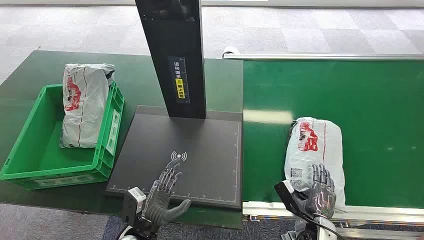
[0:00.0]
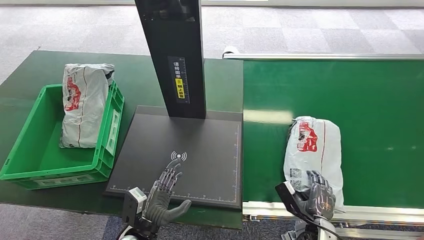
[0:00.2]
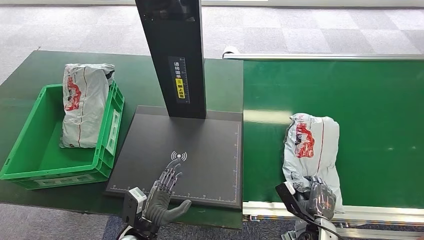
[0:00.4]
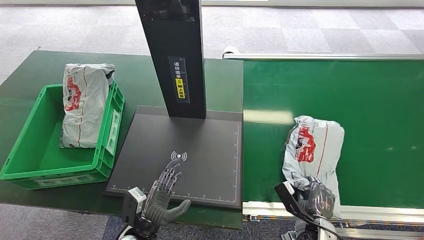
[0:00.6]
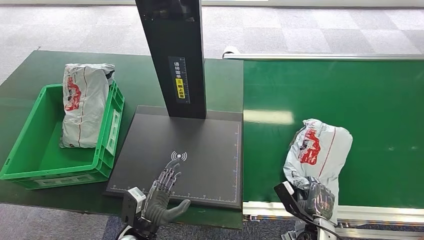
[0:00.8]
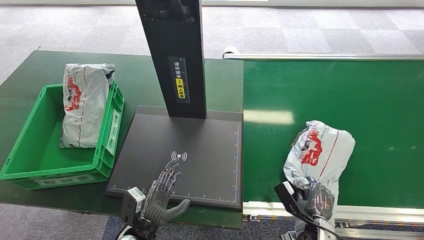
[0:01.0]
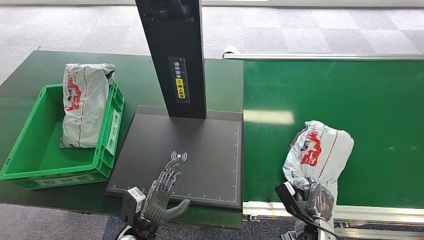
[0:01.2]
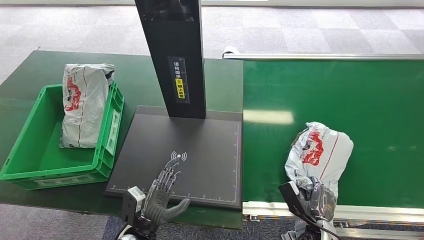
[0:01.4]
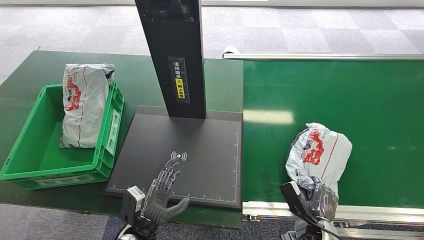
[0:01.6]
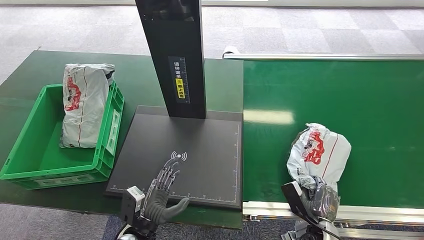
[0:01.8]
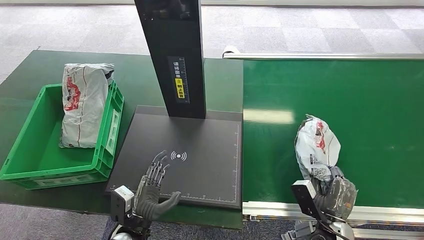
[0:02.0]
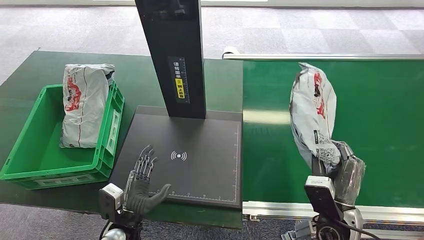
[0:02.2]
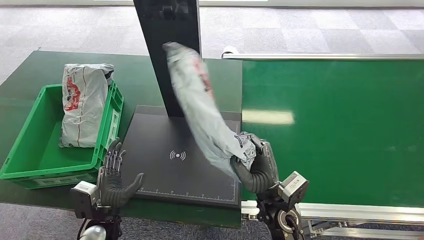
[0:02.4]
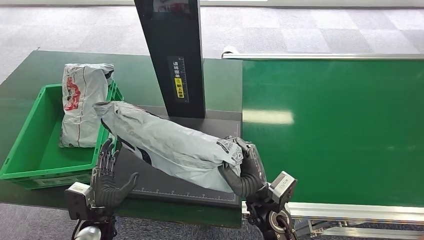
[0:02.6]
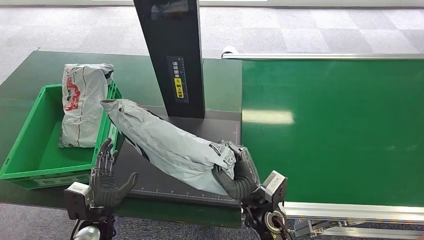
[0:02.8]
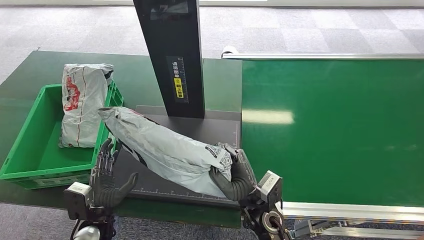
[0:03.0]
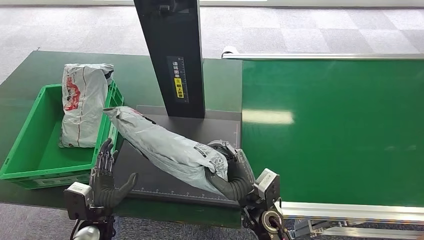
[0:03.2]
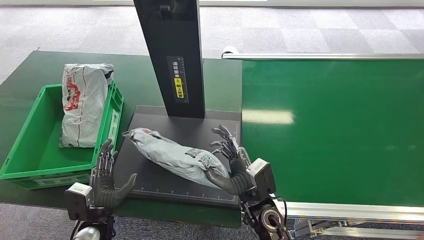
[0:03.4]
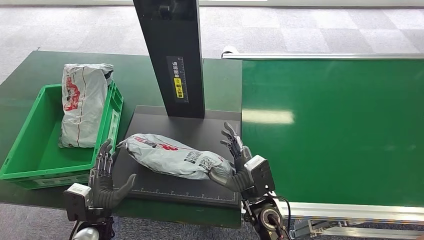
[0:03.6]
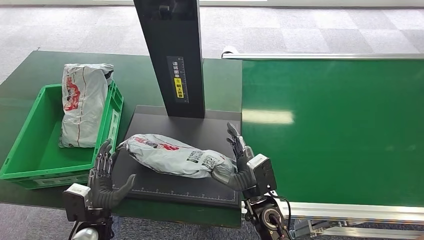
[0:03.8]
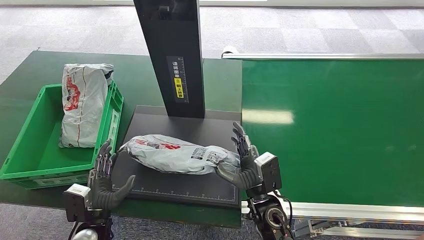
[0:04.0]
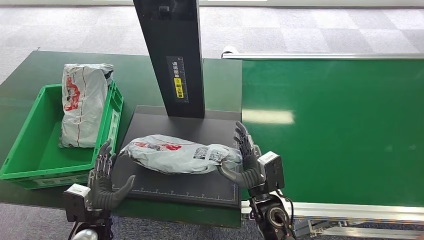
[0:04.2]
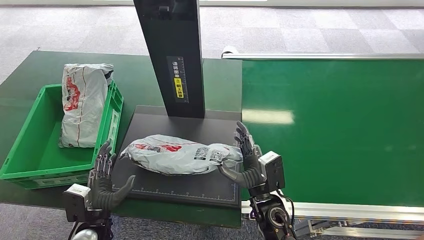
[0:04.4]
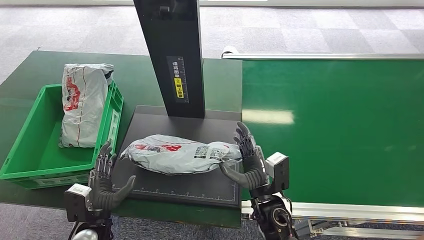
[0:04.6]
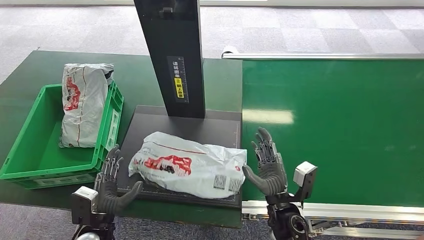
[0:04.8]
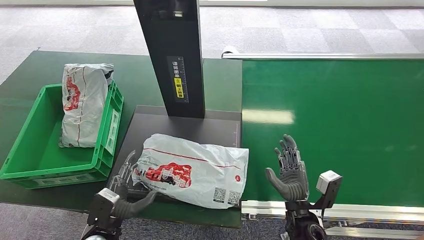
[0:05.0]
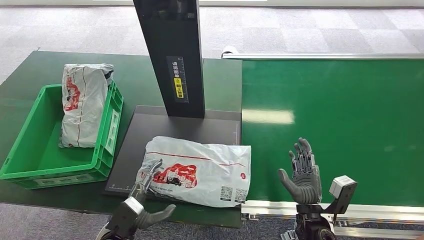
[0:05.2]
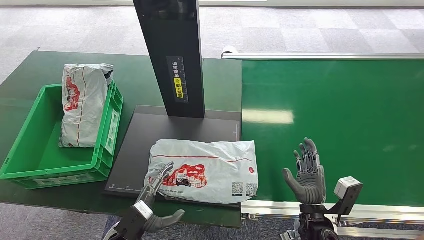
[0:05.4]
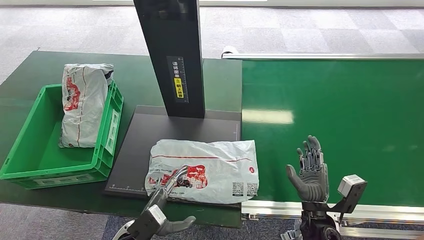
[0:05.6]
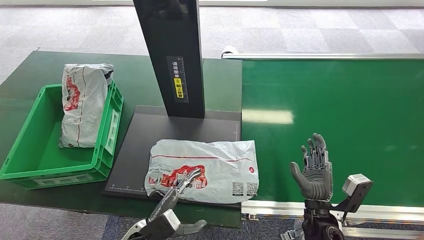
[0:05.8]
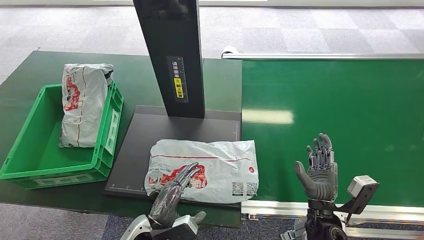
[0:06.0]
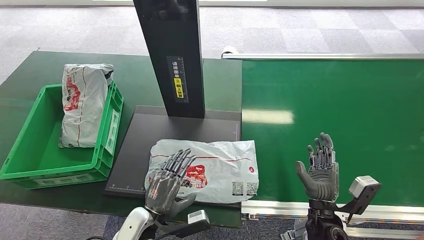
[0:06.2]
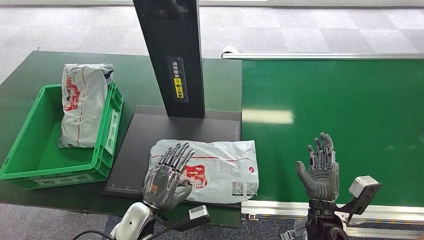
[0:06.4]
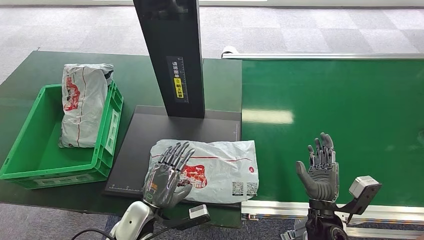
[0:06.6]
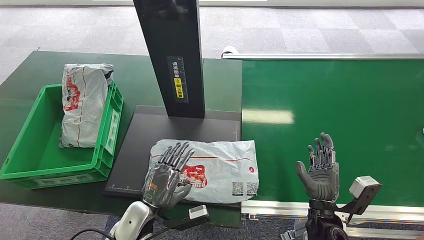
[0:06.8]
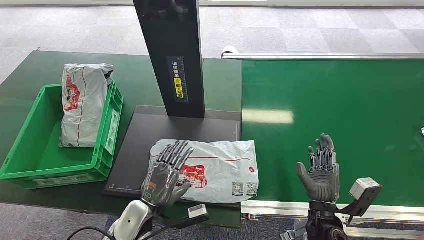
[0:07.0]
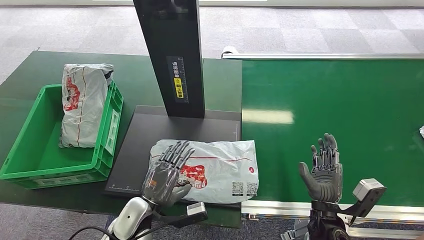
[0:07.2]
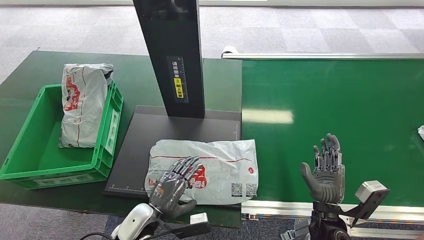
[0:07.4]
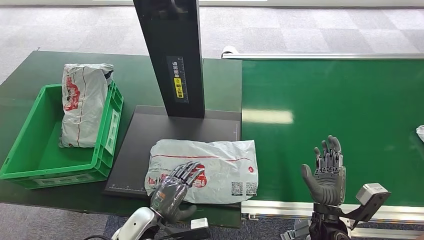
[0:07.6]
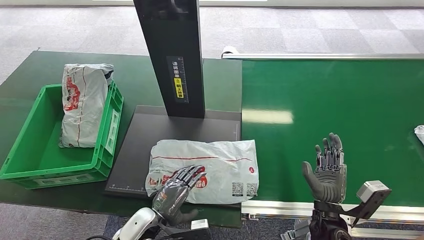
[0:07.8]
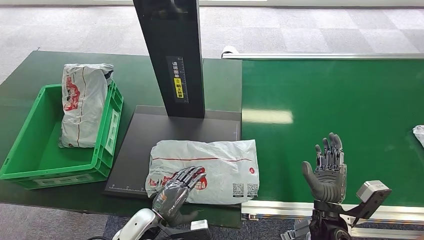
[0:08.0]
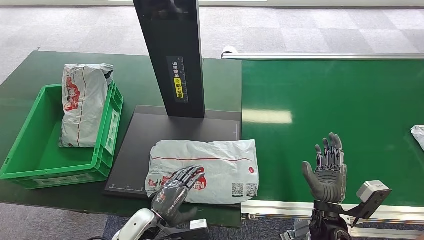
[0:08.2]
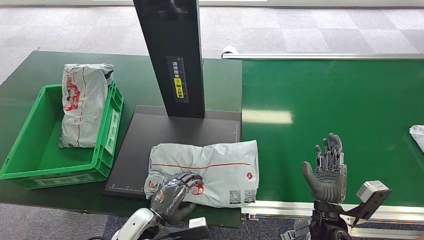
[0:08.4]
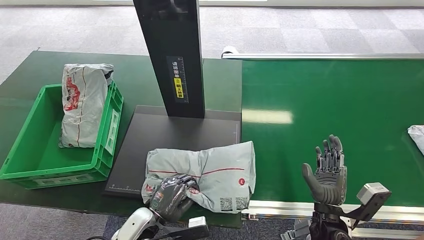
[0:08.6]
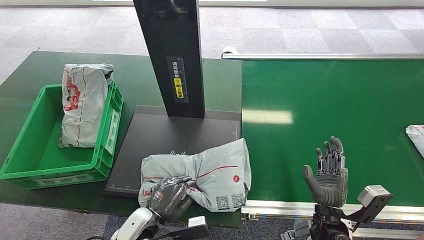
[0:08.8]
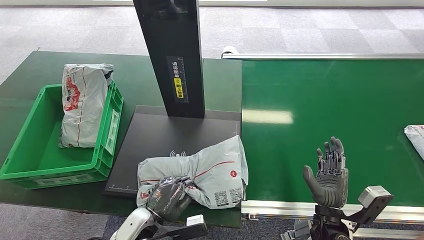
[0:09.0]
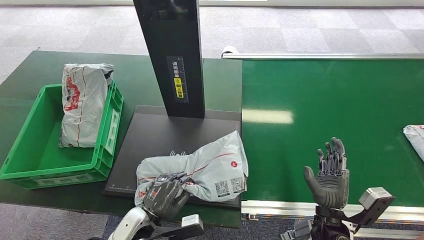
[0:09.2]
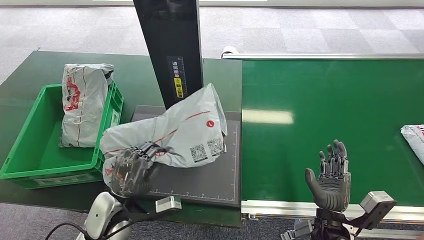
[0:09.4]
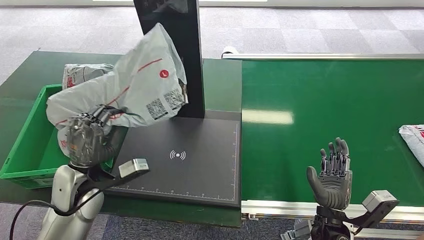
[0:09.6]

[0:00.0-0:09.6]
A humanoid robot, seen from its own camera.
Step, 0:00.0 to 0:02.6: Pick up the package from the conveyor belt.
Step, 0:03.0 to 0:05.6: Place the package onto the inbound machine.
0:01.6 to 0:03.2: The left hand is displaced to the left by approximately 10 cm; the right hand goes roughly 25 cm to the left and upward.
0:03.2 to 0:04.8: The right hand is displaced to the right by roughly 5 cm.
0:04.8 to 0:06.4: The hands both shift to the right by roughly 10 cm.

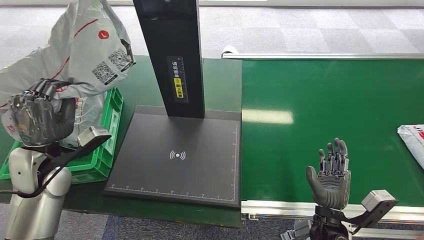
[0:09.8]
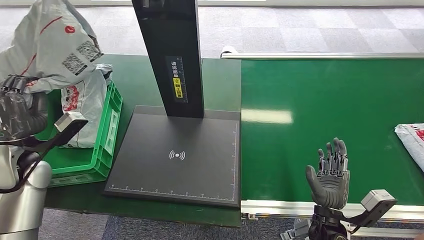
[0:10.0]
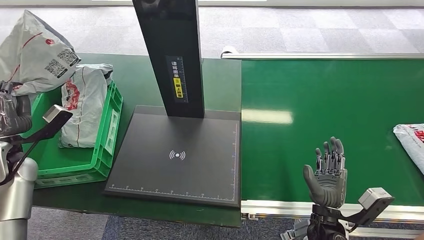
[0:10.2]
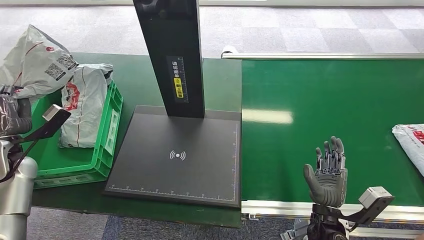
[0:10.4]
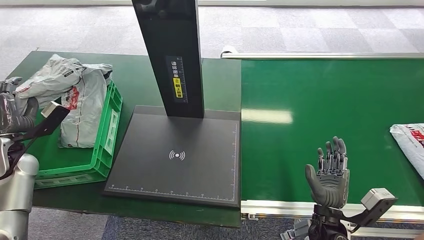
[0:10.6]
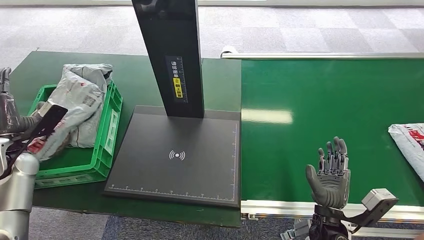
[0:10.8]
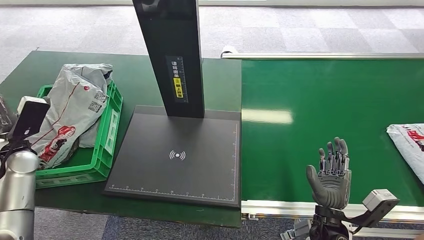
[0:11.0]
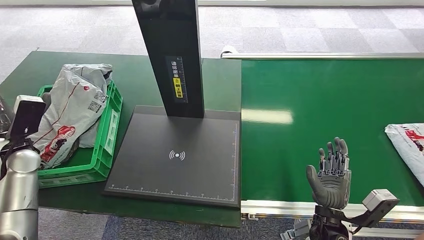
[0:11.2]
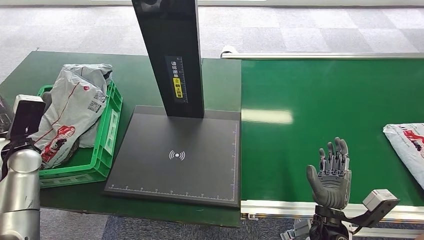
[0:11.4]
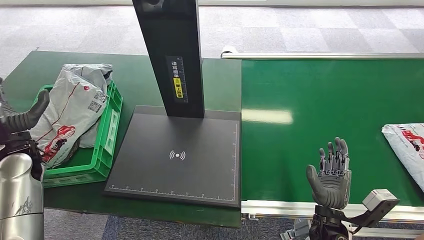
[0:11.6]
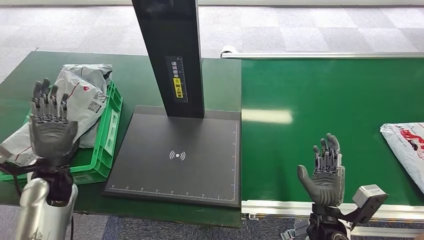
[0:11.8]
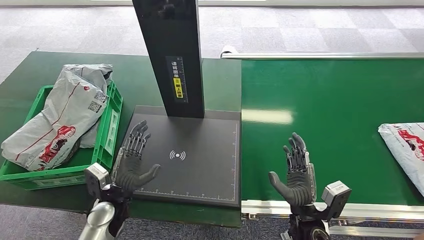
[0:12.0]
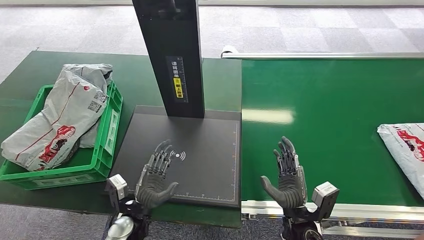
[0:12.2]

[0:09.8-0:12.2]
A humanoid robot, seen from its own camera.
Step, 0:10.0 to 0:12.2: Place the package into the parcel locker.
0:09.8 to 0:11.0: The left hand goes roughly 10 cm to the left.
0:11.0 to 0:12.2: The right hand is displaced to the left by approximately 5 cm; the left hand moves to the right and downward, about 35 cm.
